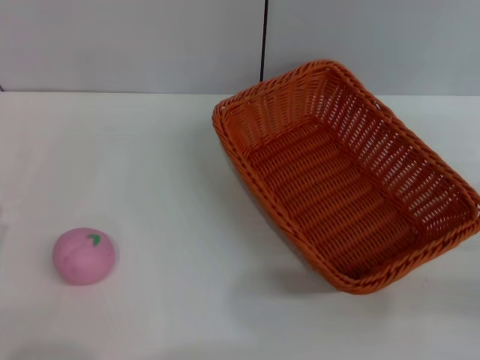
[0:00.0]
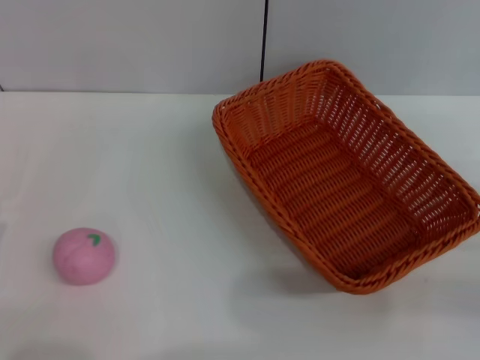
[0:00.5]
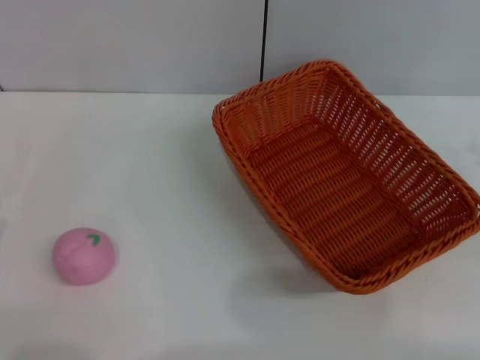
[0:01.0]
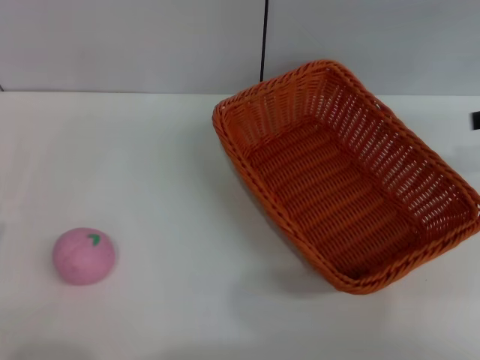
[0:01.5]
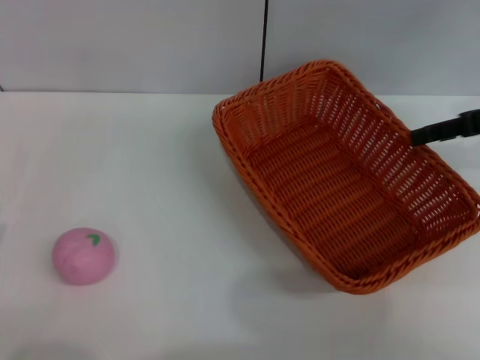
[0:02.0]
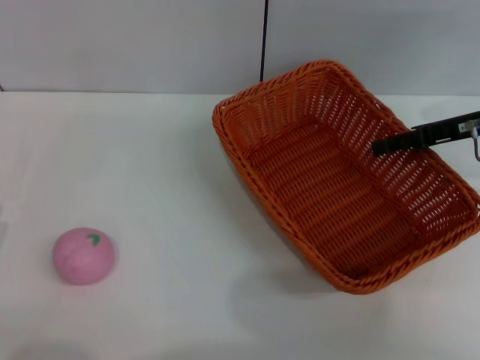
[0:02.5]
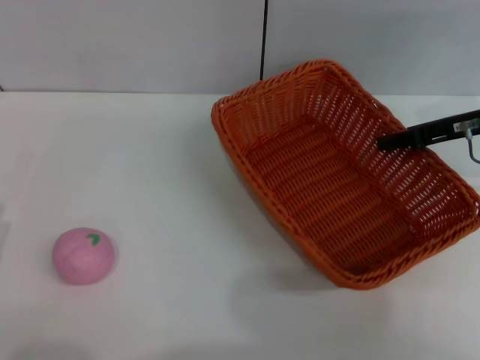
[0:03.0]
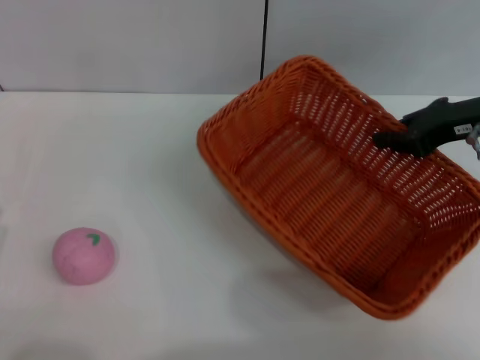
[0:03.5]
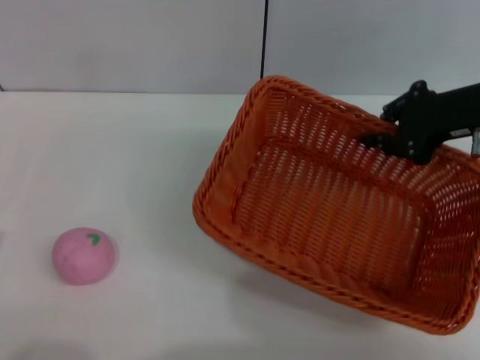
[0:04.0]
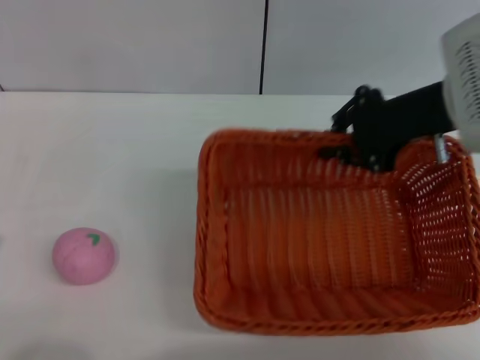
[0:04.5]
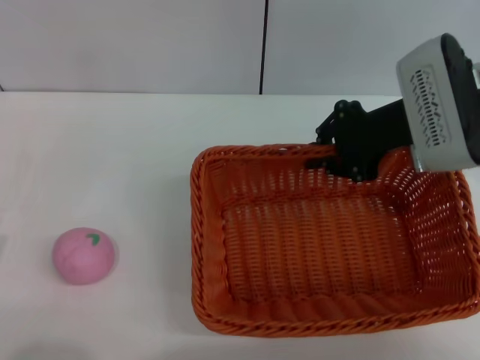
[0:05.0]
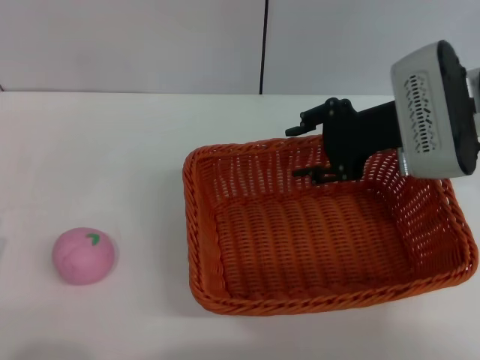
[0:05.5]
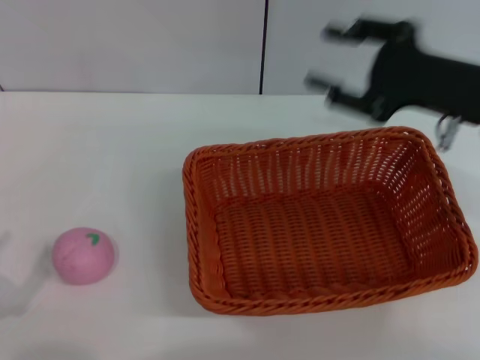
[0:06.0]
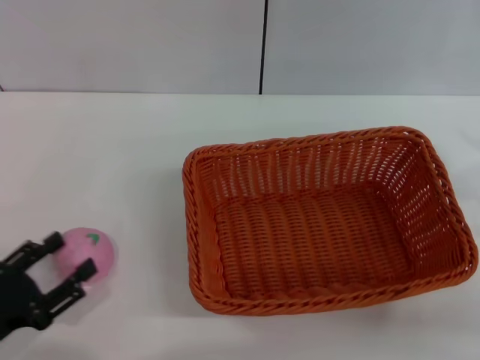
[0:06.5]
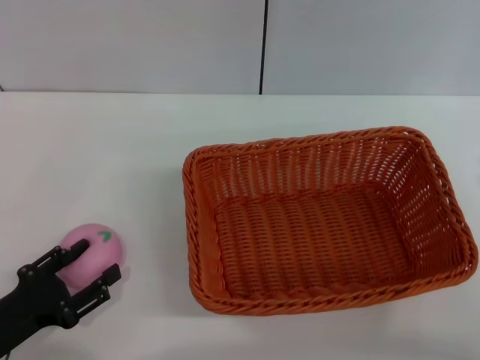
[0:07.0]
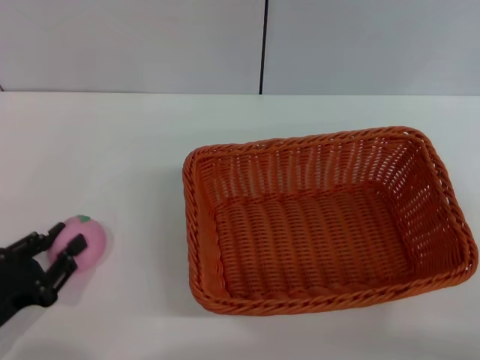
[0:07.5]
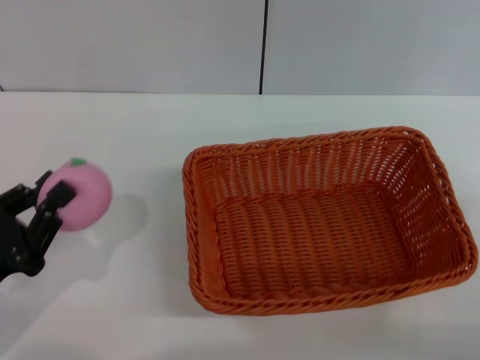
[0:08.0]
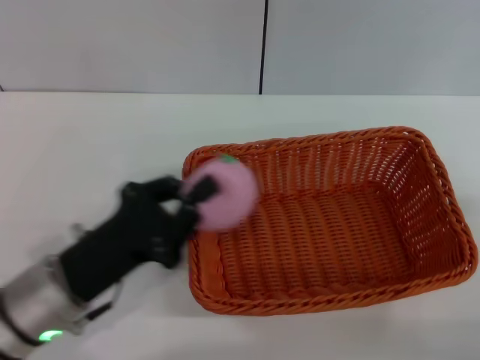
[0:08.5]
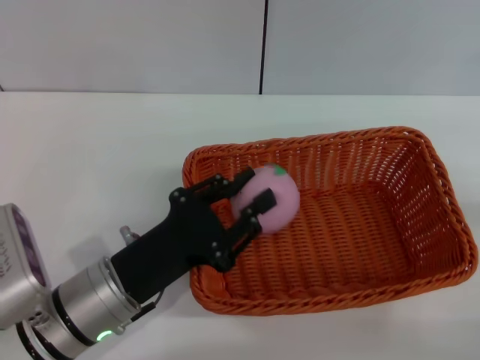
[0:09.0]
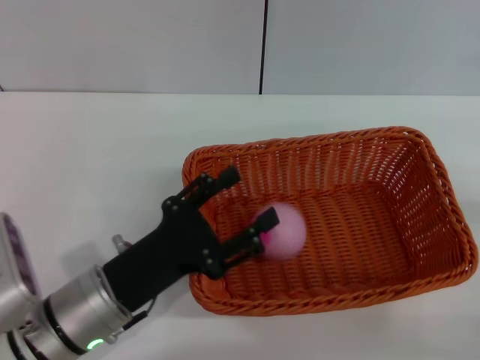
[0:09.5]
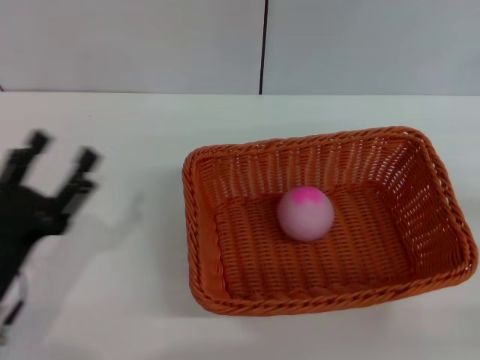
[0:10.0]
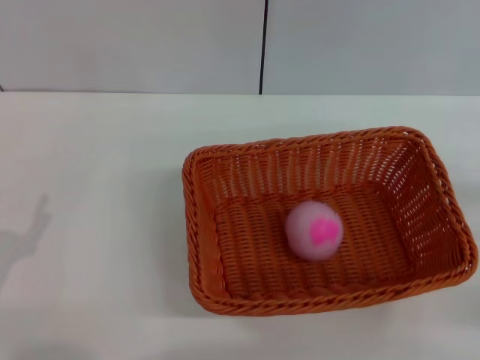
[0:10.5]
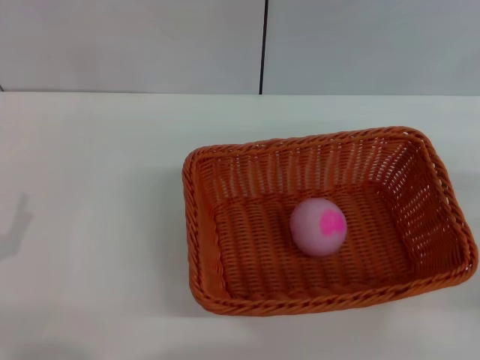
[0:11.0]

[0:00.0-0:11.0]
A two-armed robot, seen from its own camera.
Step, 0:00.0 to 0:03.0: Pick up the light basket with the right gripper.
Step, 0:03.5 to 0:05.5: Place the light basket in the center of view with the right gripper.
Step, 0:06.0 to 0:08.0: Pick up the peach with the left gripper.
Step, 0:08.5 to 0:09.0: Place the peach into the basket with the left gripper.
0:00.0 to 0:02.0: The right gripper shifts about 20 cm forward and upward.
0:02.0 to 0:03.5: The right gripper closes its fingers.
0:03.5 to 0:05.5: The right gripper travels to the left by about 10 cm, and opens its fingers.
0:05.5 to 0:07.5: The left gripper moves forward, about 5 cm, while the right gripper shifts about 25 cm backward, to the right and downward.
0:07.5 to 0:09.0: The left gripper goes approximately 15 cm to the right, and closes its fingers.
0:09.0 to 0:11.0: The left gripper goes roughly 15 cm to the left and backward, and opens up.
